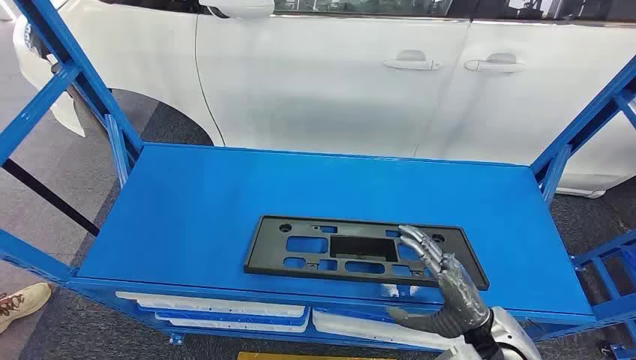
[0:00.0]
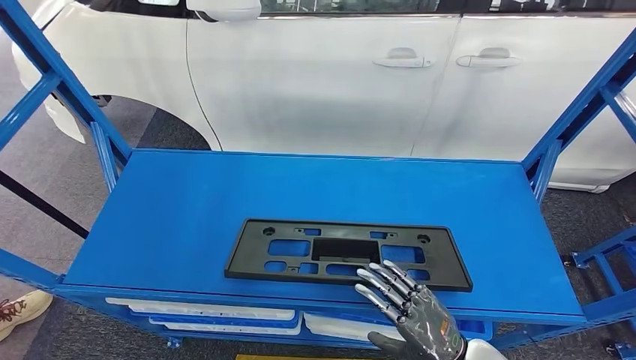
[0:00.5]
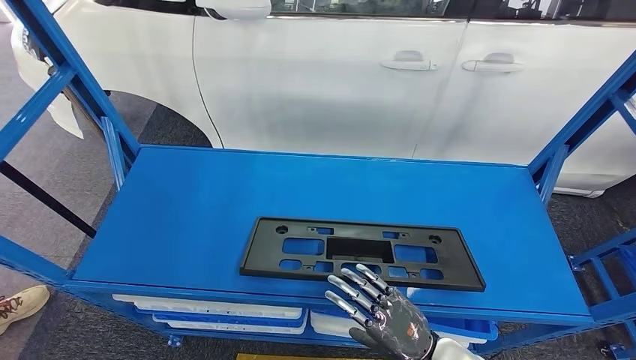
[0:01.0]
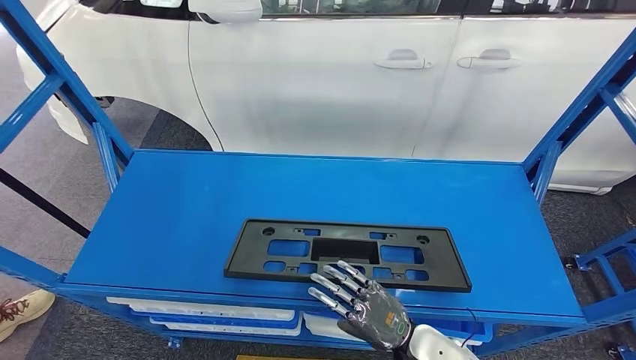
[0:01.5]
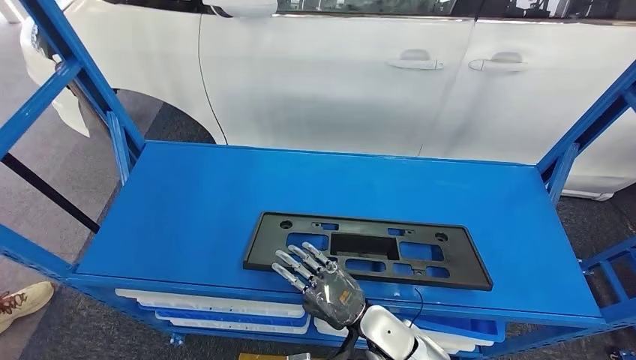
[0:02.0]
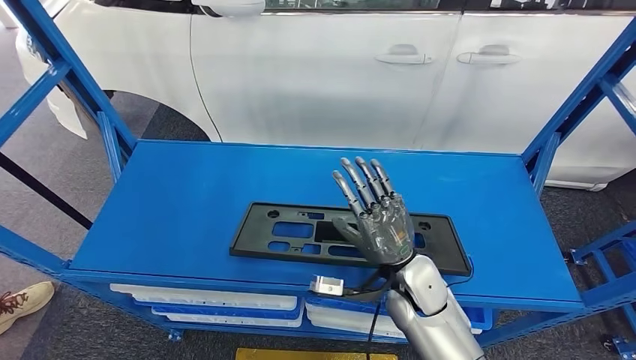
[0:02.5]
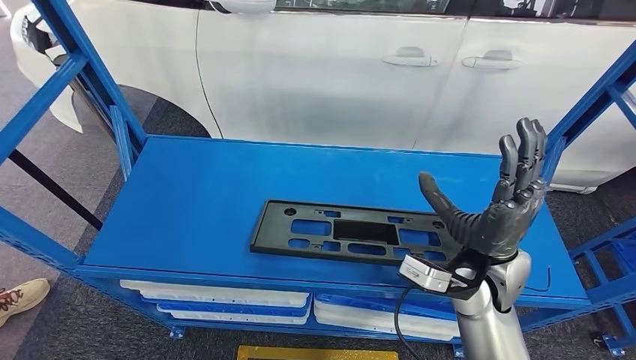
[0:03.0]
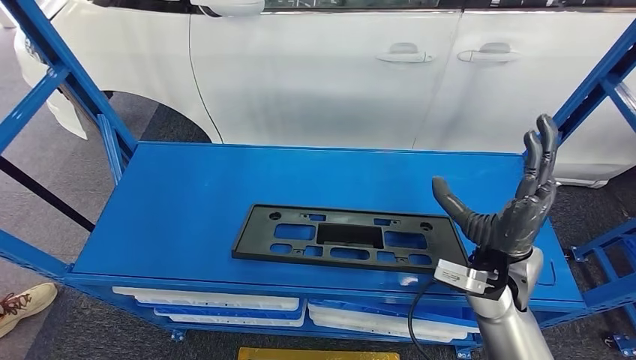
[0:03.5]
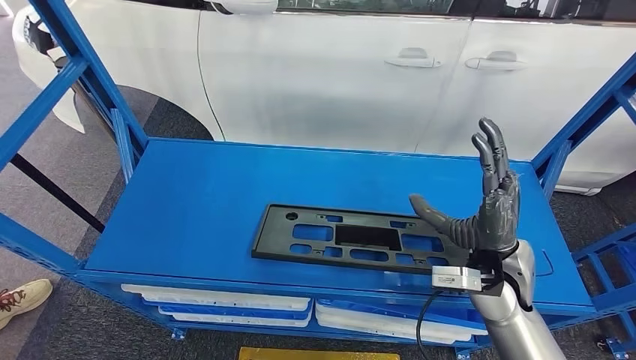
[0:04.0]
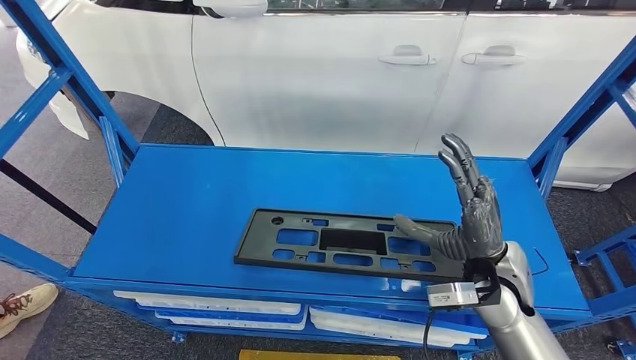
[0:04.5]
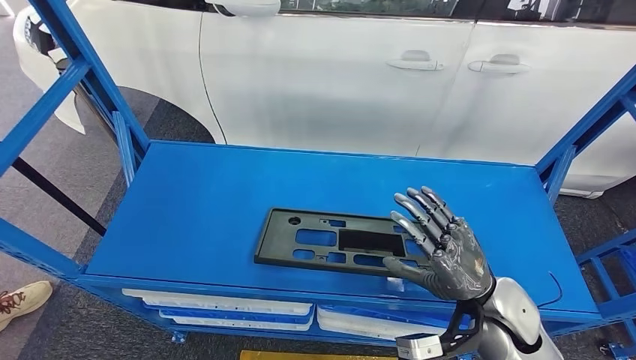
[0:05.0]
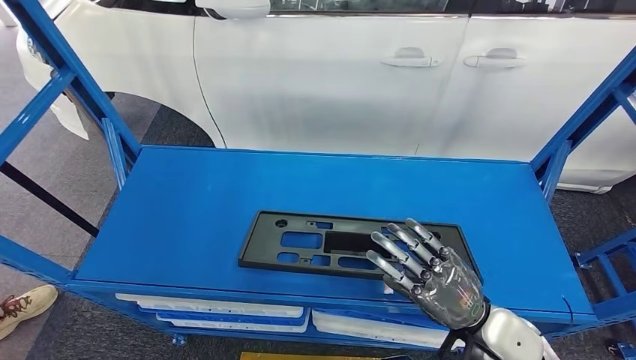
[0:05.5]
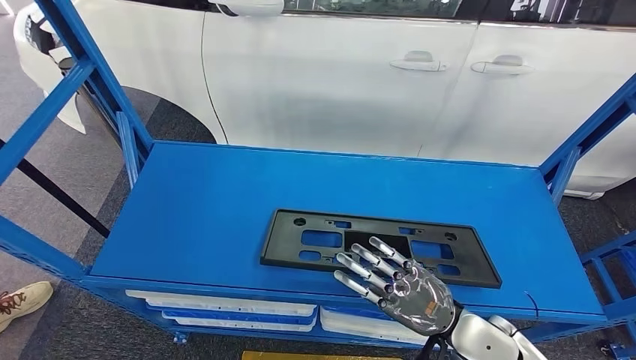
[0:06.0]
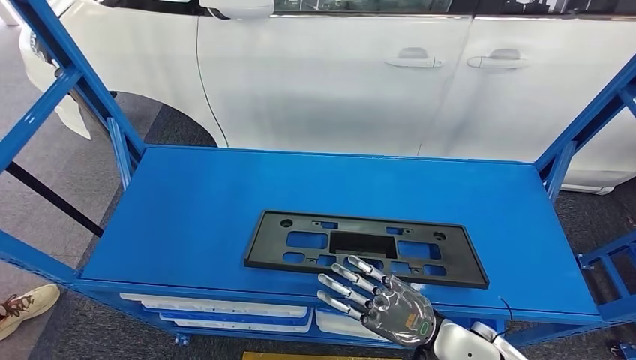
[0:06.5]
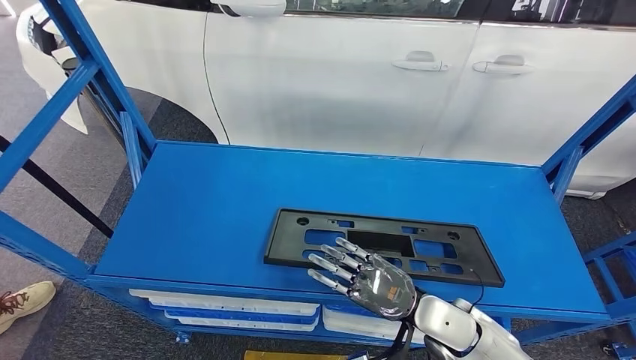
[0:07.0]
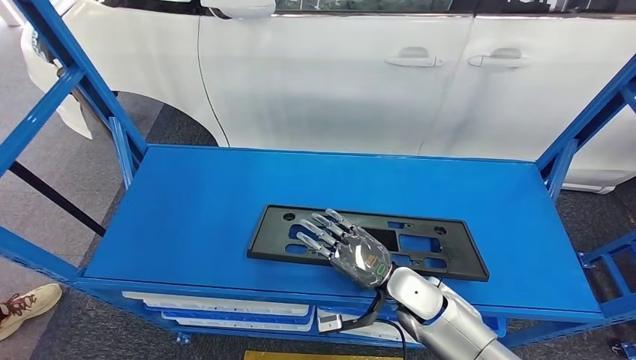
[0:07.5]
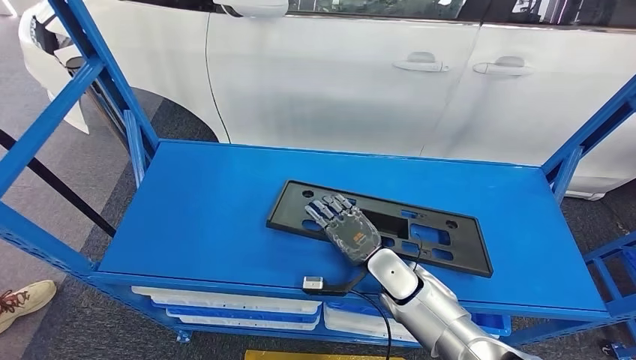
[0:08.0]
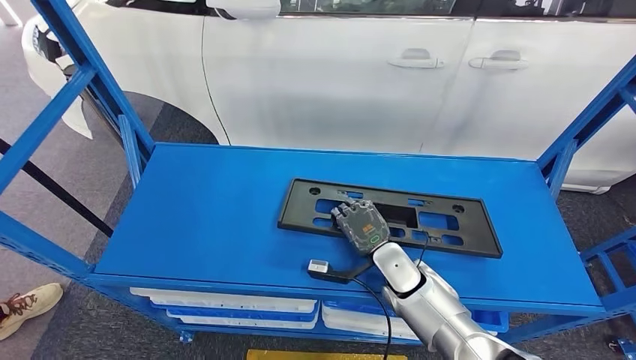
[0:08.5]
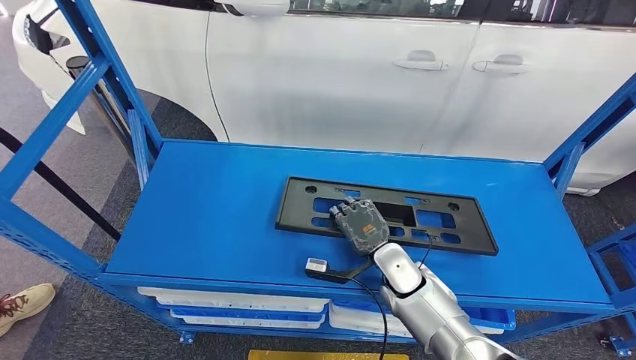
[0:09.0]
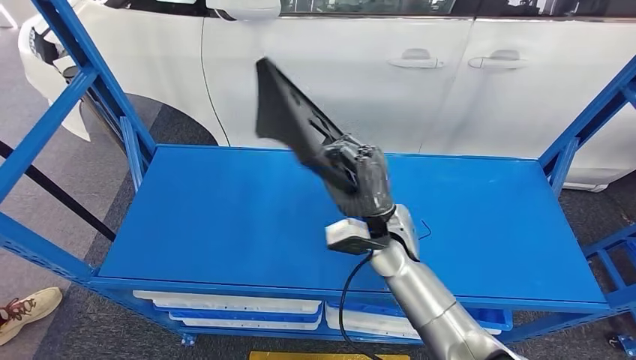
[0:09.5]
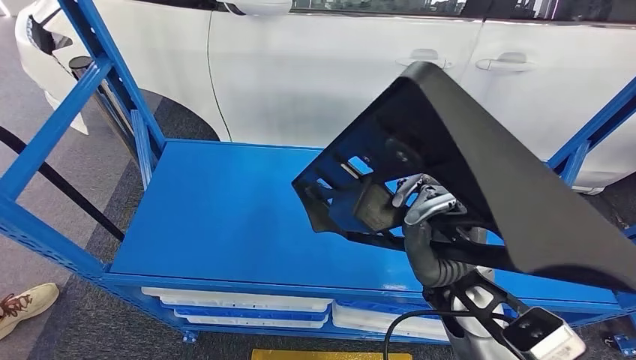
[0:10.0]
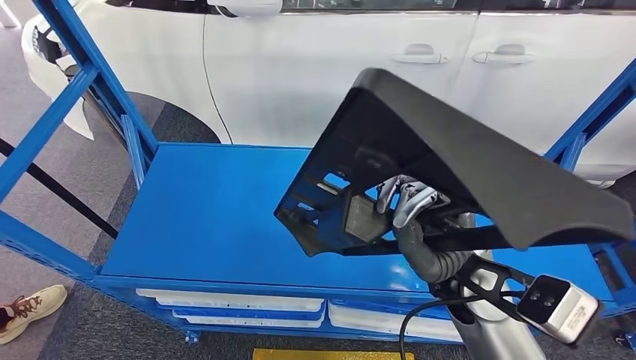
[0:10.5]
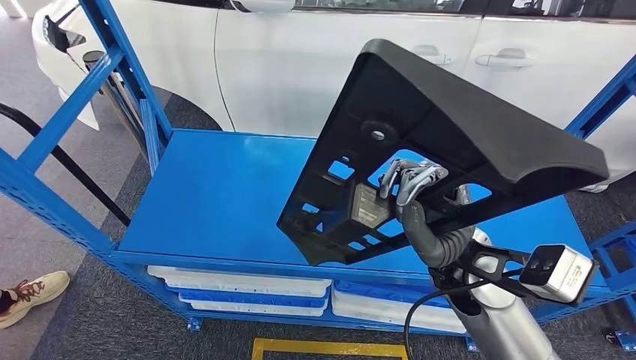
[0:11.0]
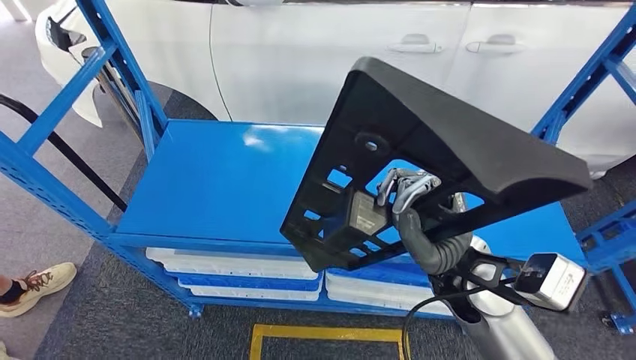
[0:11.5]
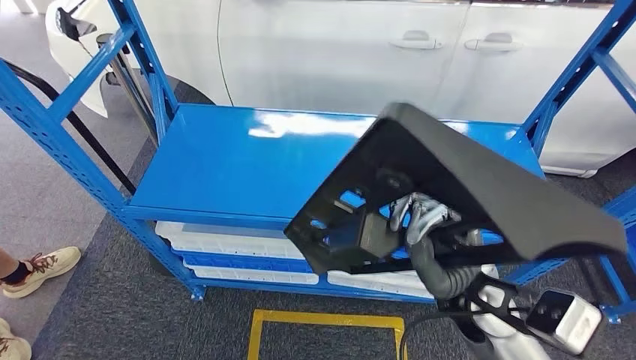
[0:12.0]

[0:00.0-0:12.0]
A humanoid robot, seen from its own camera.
Step, 0:00.0 to 0:09.5: Pick up the large material from the shelf.
0:06.0 to 0:08.0: The right hand shifts roughly 15 cm forward, to the left and downward.

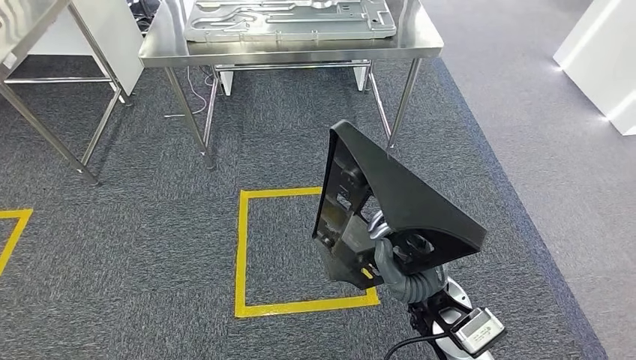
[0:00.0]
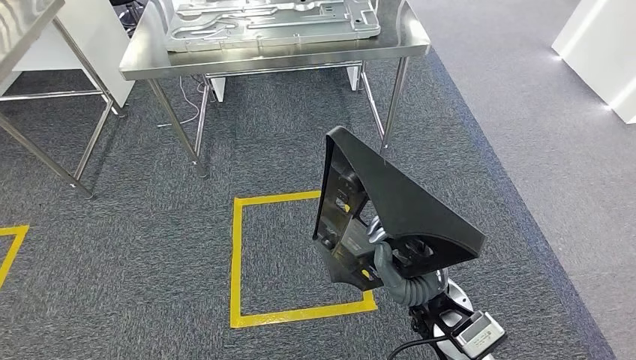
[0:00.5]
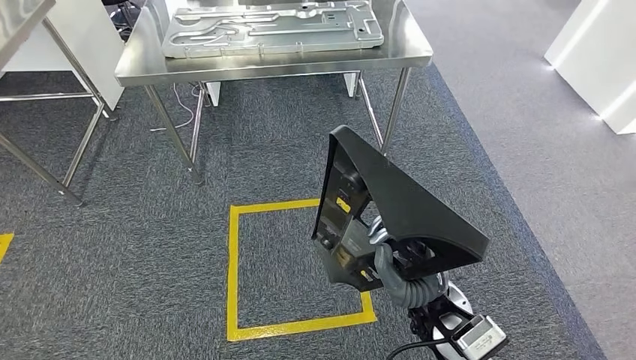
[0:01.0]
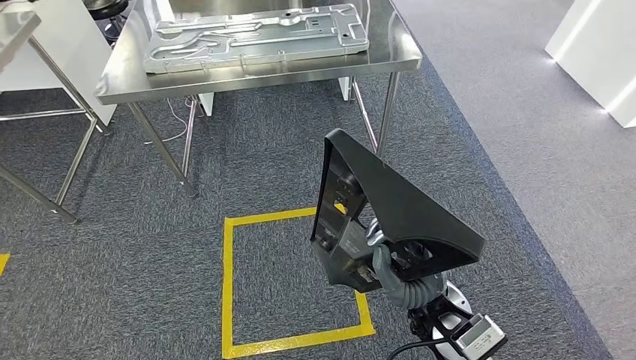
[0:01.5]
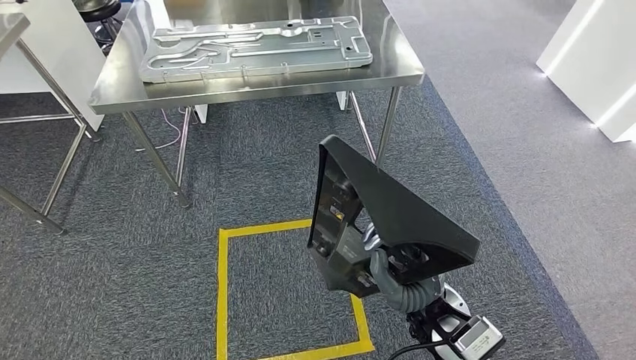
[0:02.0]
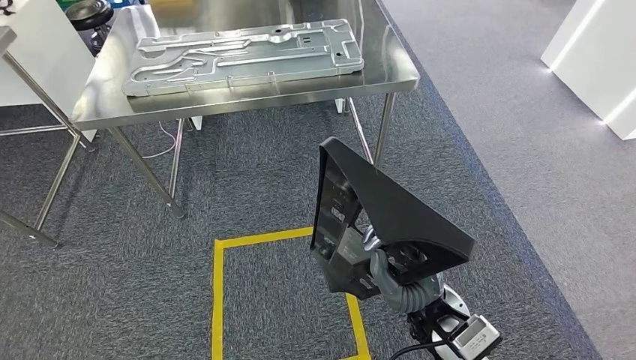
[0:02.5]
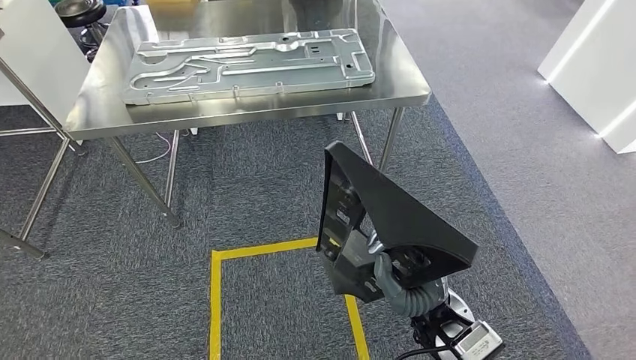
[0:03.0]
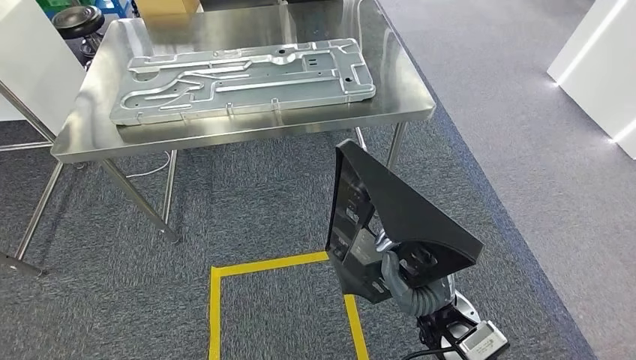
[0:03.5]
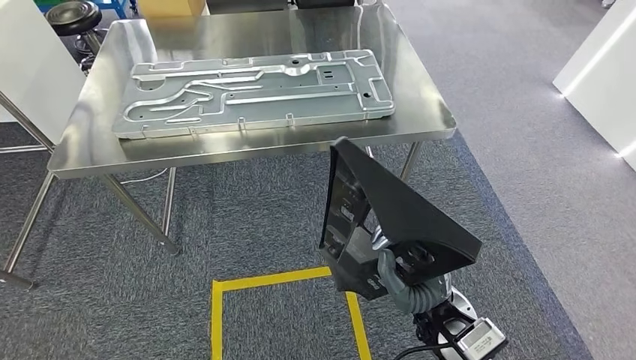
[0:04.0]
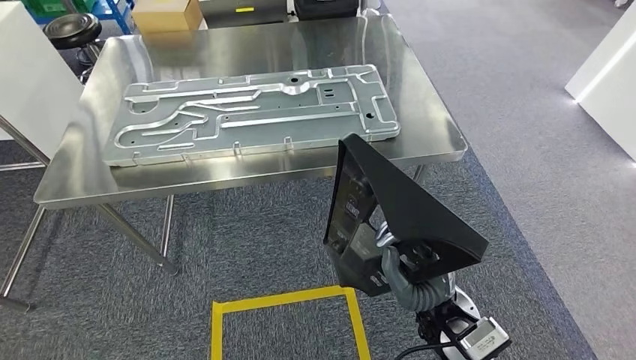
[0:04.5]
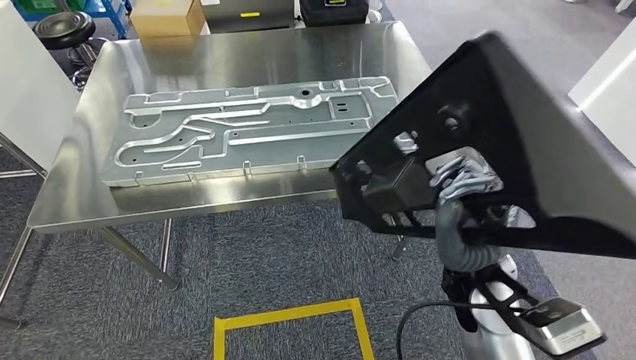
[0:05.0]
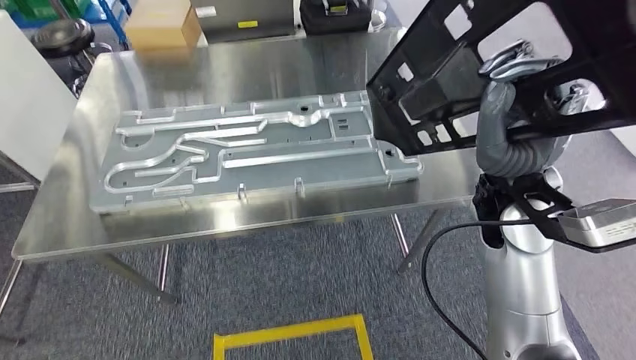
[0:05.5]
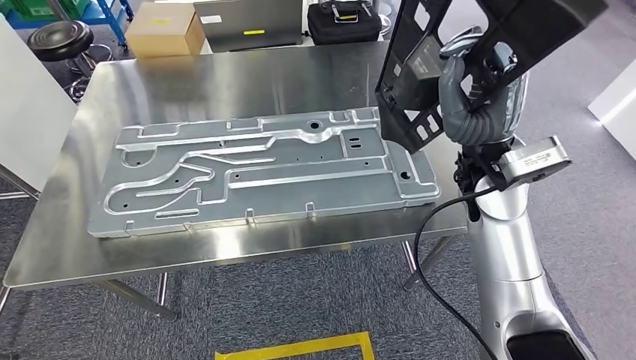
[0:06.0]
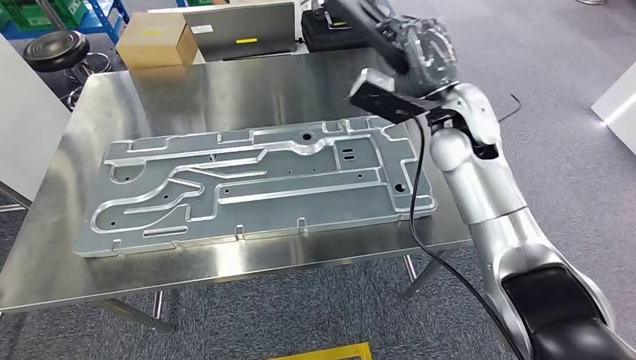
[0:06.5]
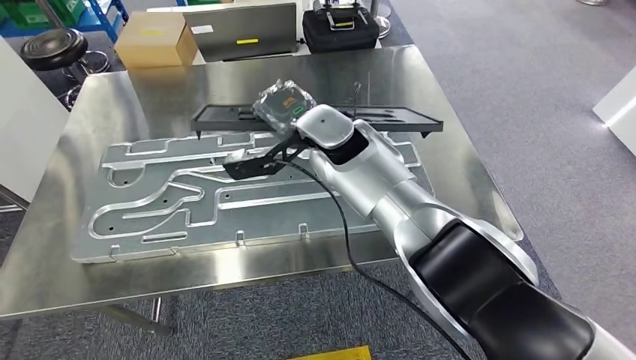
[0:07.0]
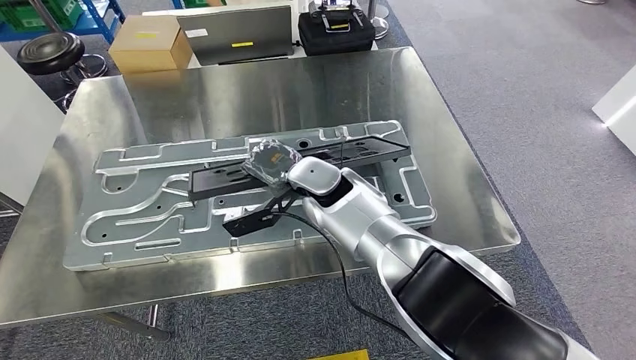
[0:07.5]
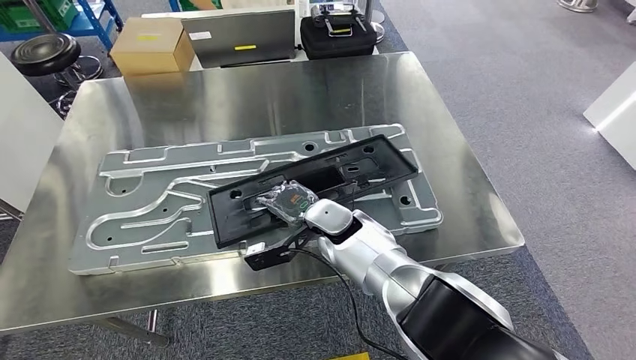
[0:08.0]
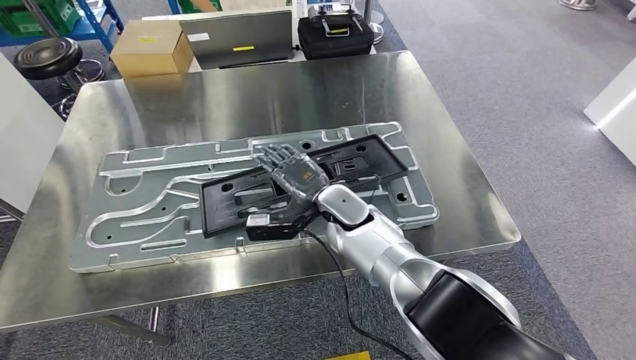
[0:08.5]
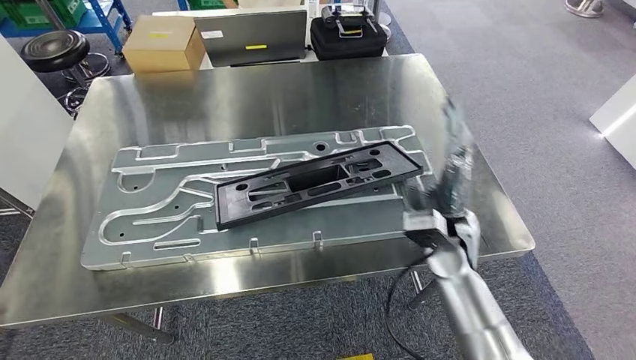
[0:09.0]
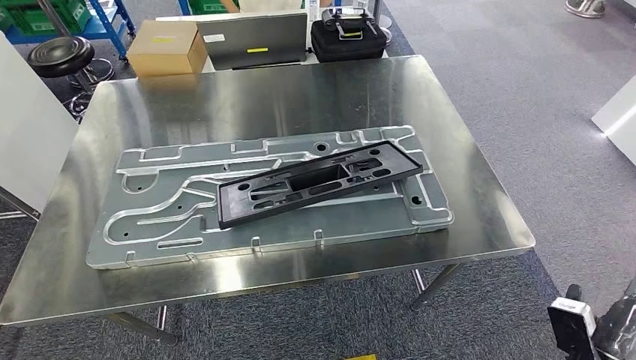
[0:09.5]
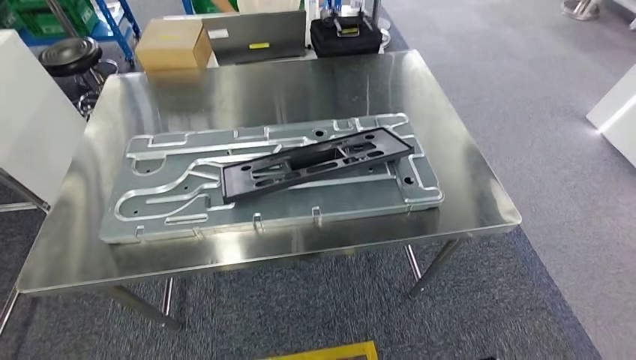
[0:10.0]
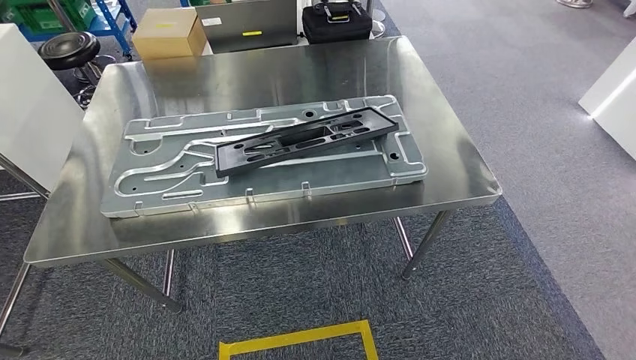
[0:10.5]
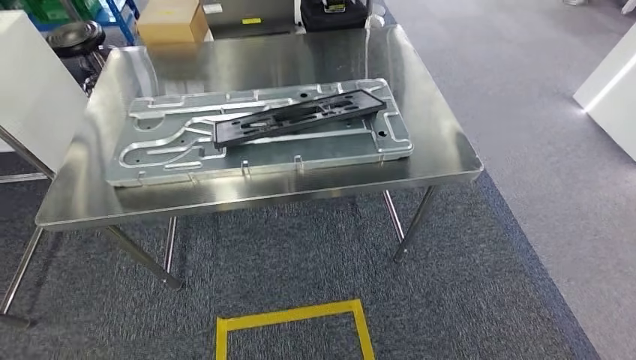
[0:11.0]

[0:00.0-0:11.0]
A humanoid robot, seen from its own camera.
Step, 0:00.0 to 0:05.0: Move the large material to the workbench.
Step, 0:07.0 to 0:10.0: Insert the large material into the corresponding slot on the workbench.
